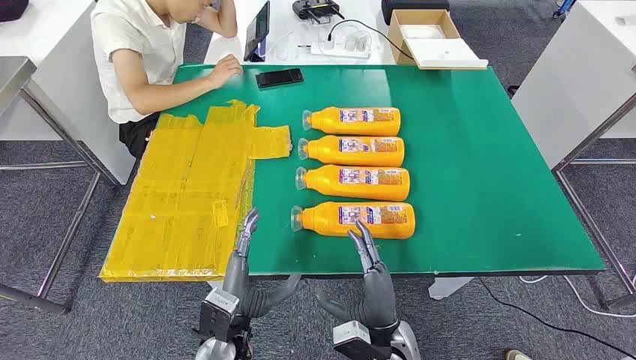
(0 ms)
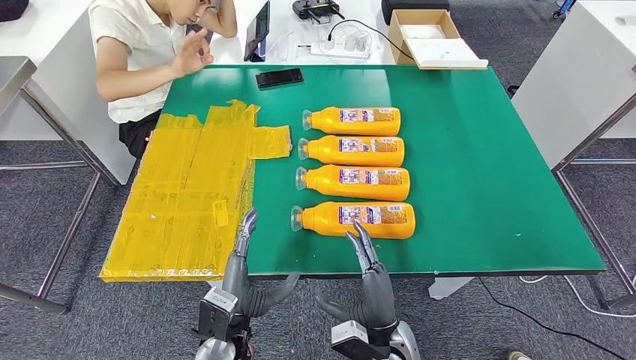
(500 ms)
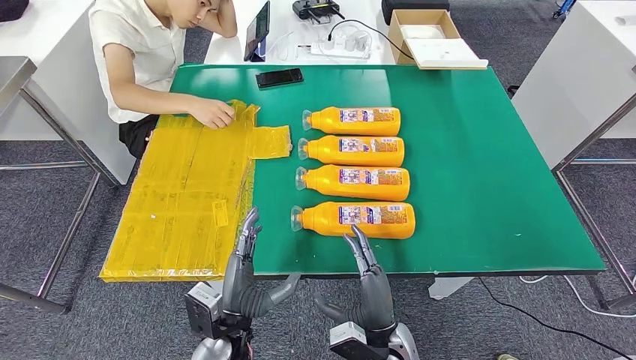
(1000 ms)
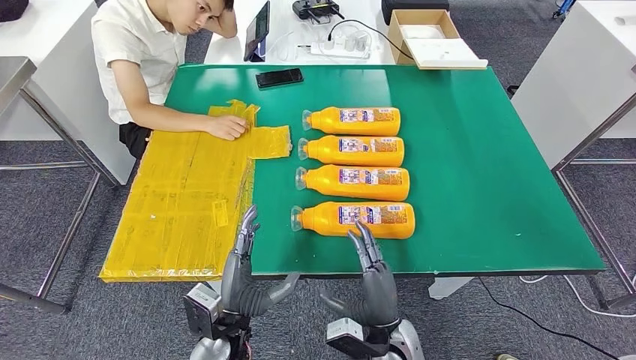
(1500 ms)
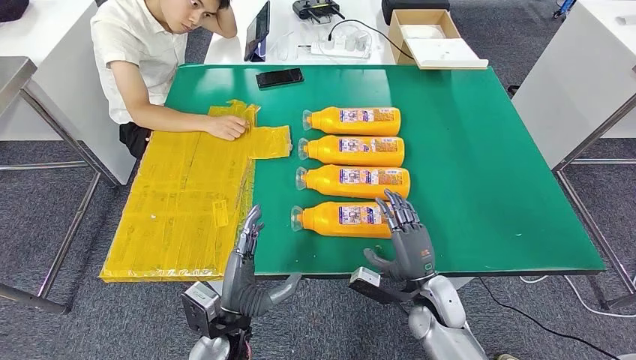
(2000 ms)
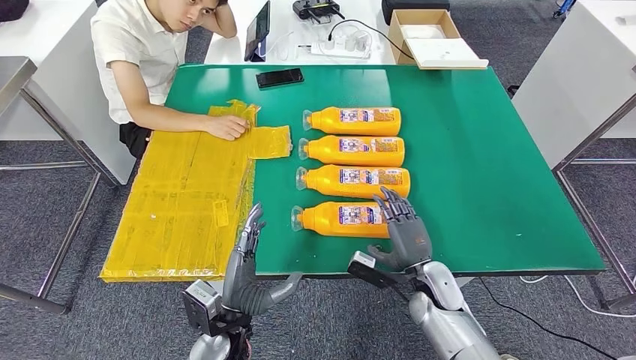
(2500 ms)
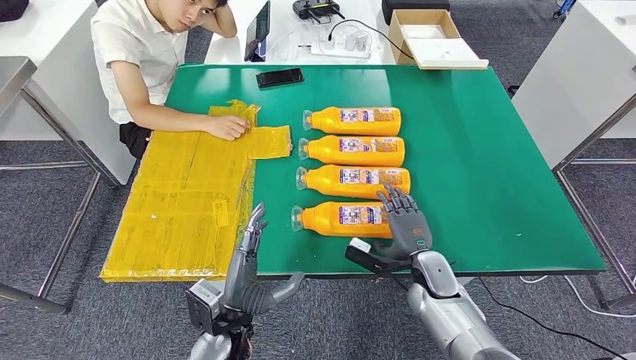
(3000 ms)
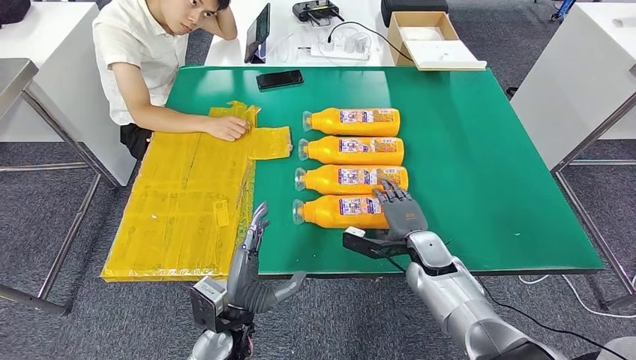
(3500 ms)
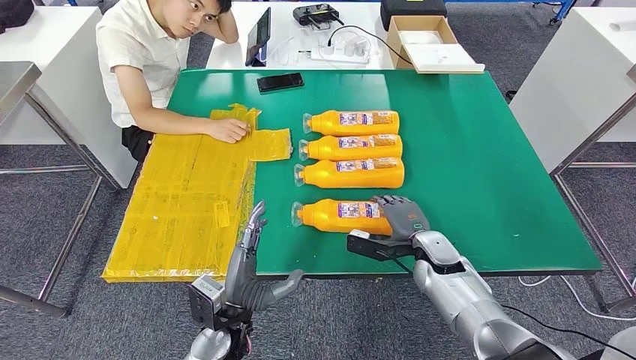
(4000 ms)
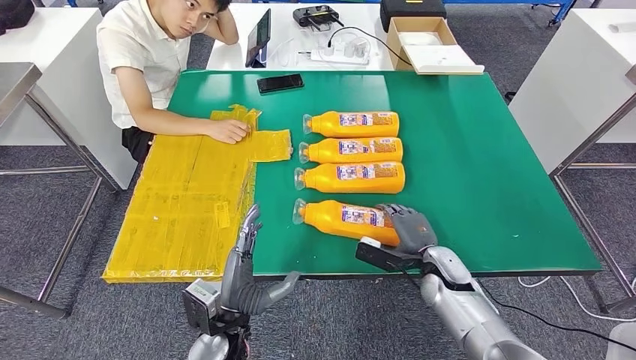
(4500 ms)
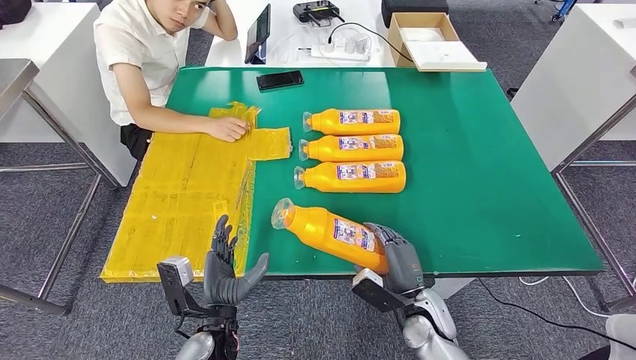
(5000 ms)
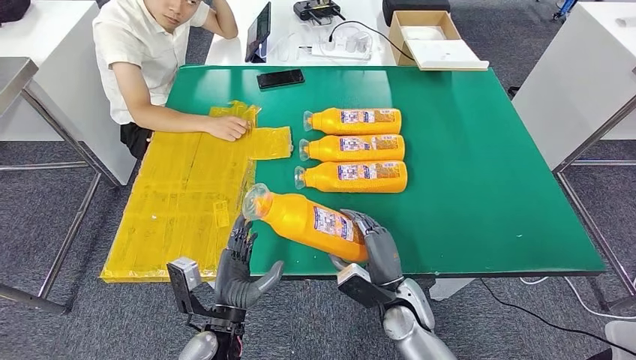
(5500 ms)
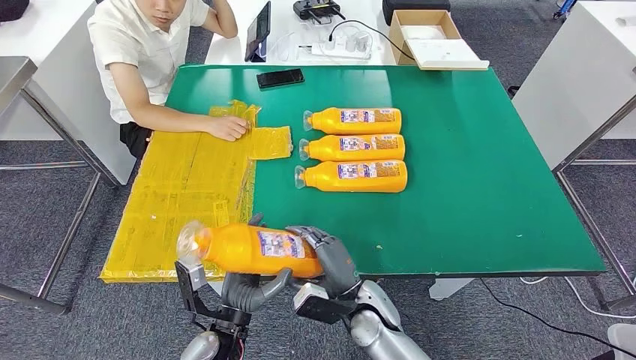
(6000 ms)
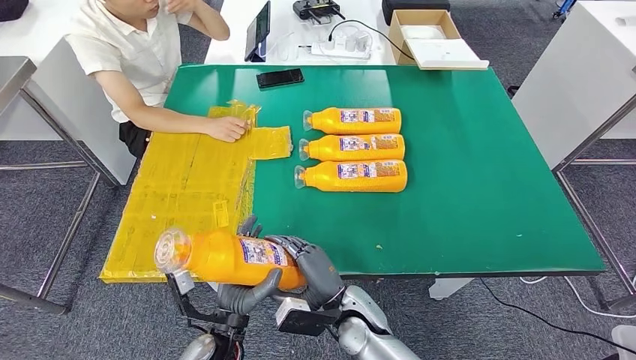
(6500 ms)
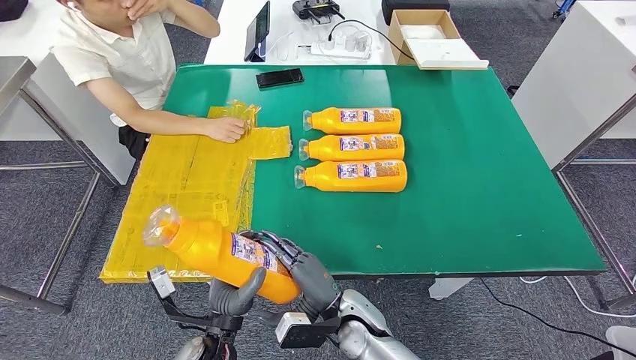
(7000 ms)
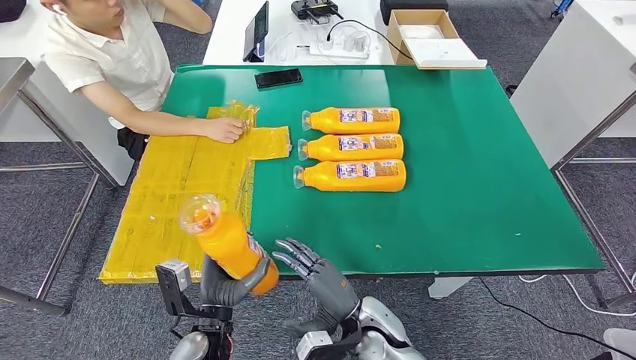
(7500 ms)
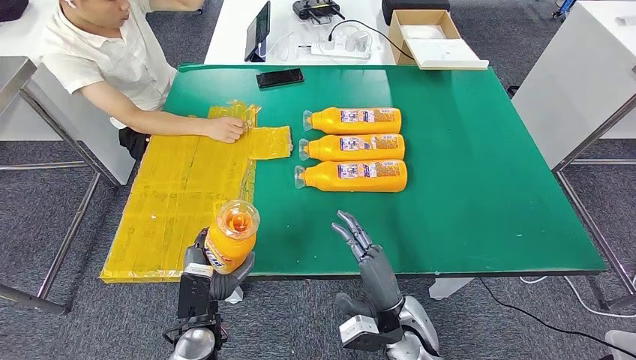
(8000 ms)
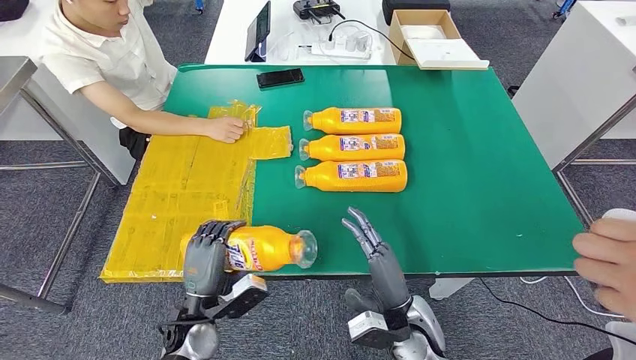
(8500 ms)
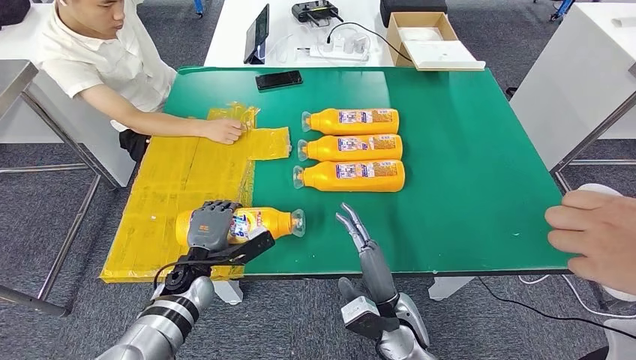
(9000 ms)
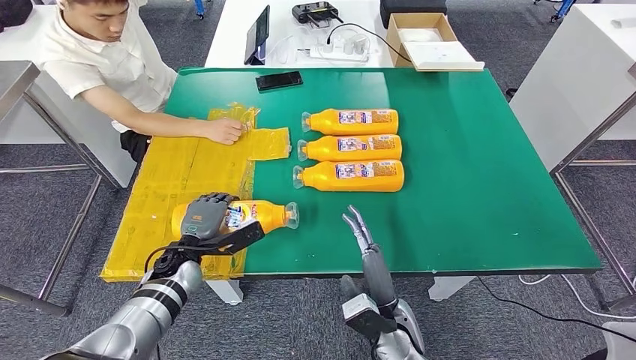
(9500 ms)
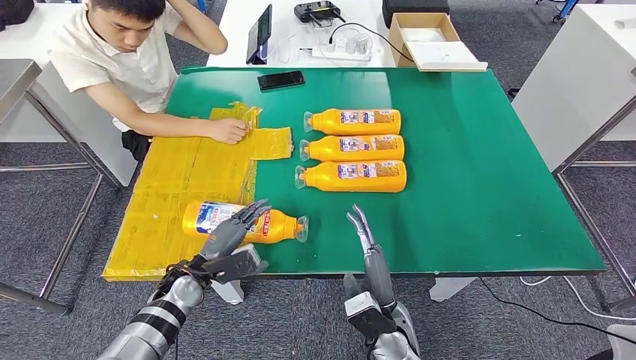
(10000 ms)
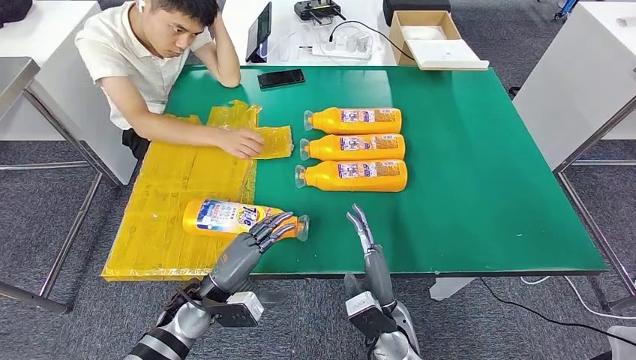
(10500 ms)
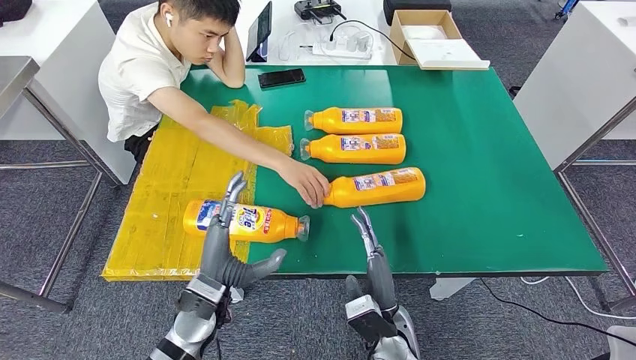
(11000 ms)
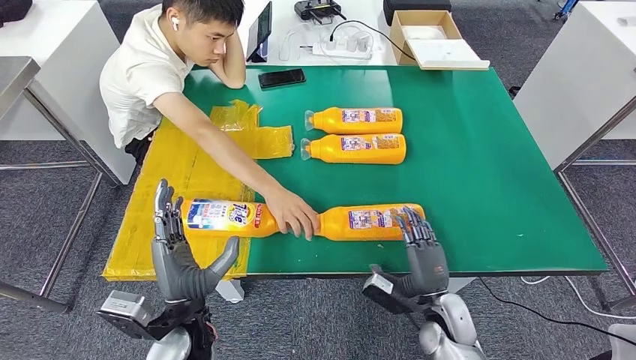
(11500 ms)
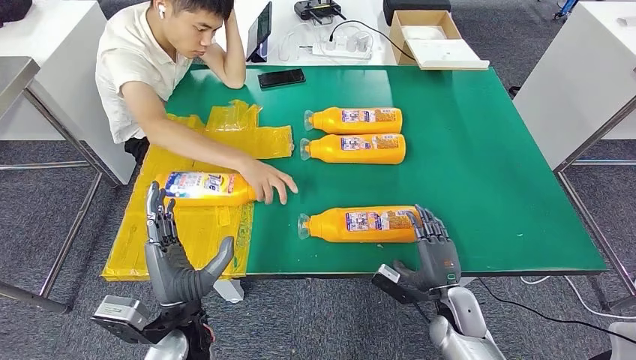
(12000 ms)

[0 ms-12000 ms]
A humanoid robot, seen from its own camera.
Step, 0 ms to 7000 ms: Take the fast-moving consumer goods bottle from the table.
Step, 7500 ms to 10500 ms: Flip the fast-moving consumer goods bottle to the front side.
6000 ms to 8000 ms: The right hand travels to the right by roughly 5 cm.
8000 ms to 10000 ms: The left hand goes some 10 cm forward.

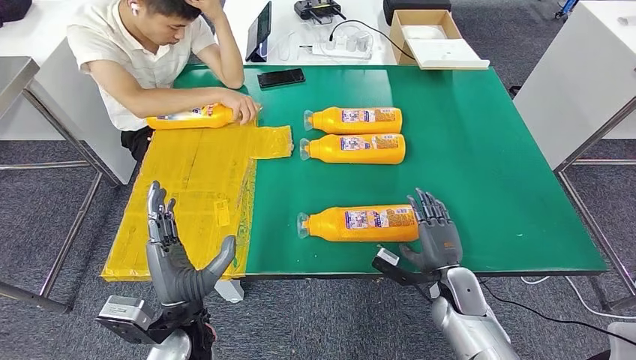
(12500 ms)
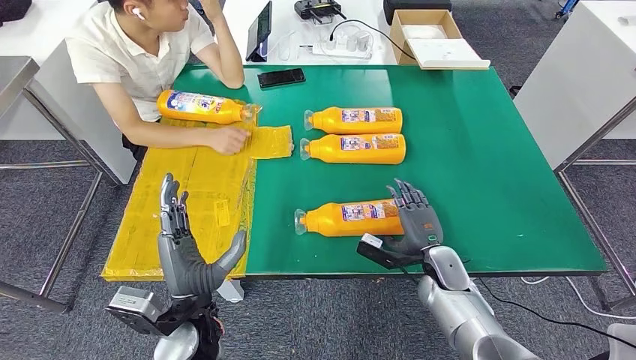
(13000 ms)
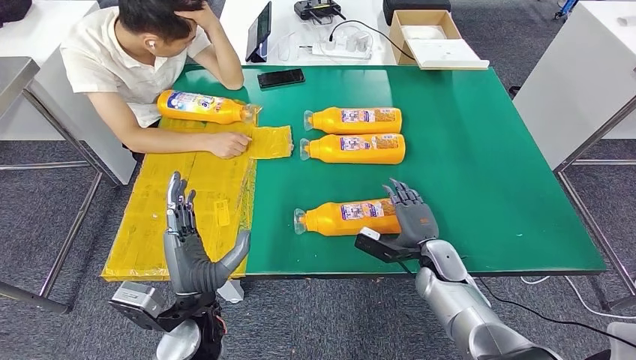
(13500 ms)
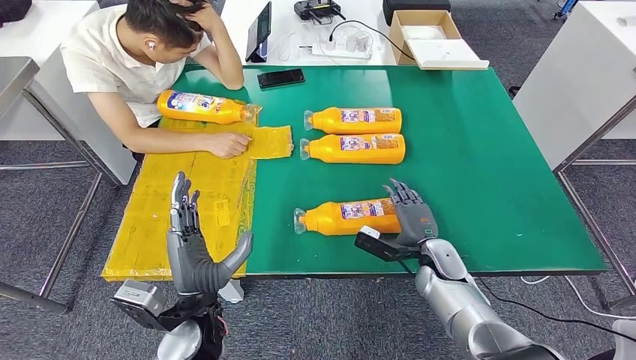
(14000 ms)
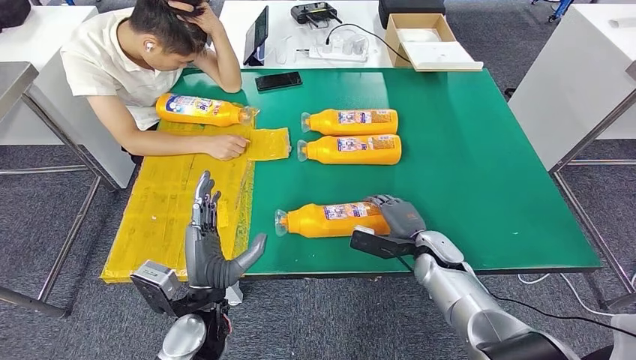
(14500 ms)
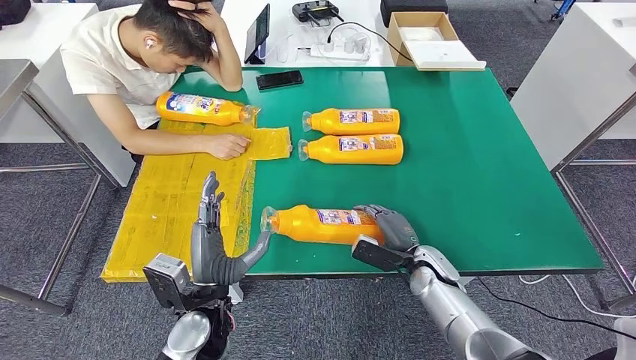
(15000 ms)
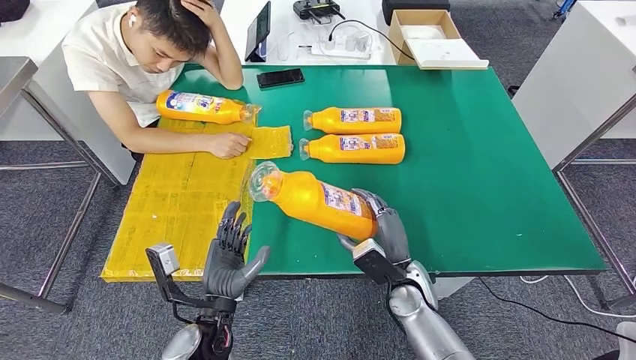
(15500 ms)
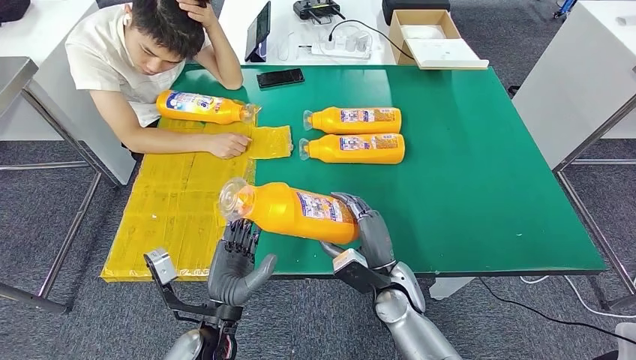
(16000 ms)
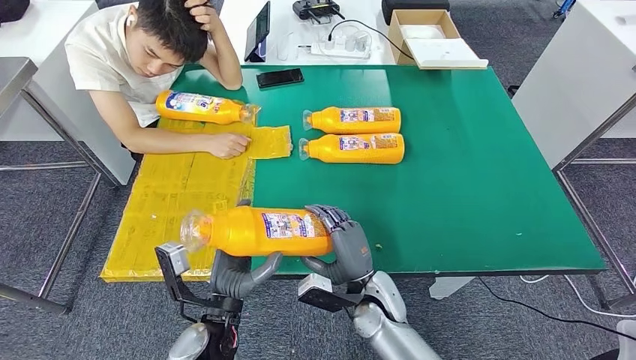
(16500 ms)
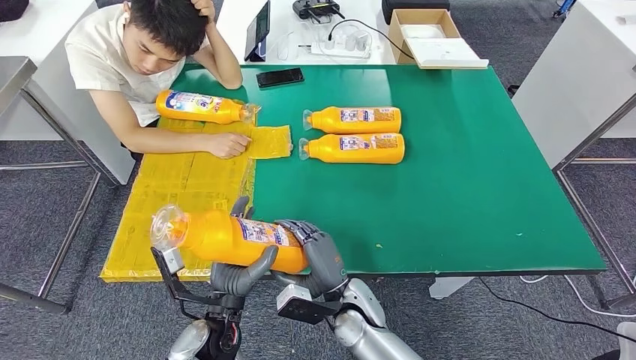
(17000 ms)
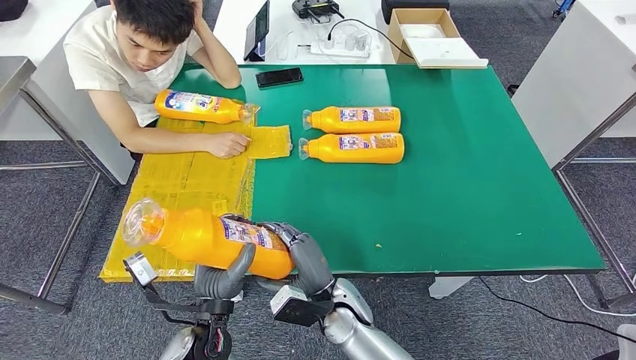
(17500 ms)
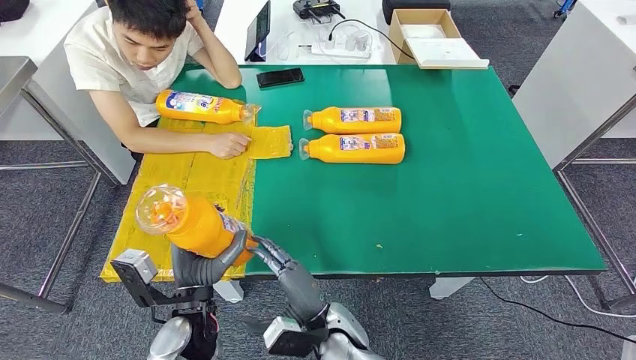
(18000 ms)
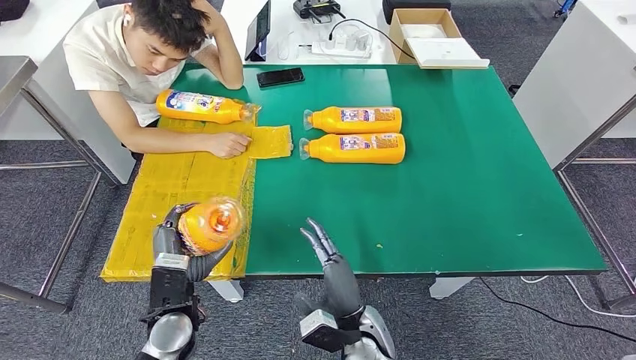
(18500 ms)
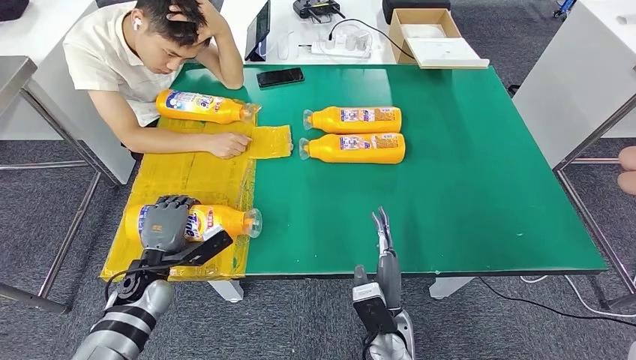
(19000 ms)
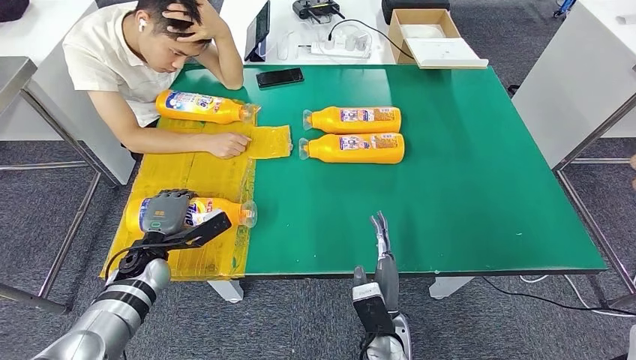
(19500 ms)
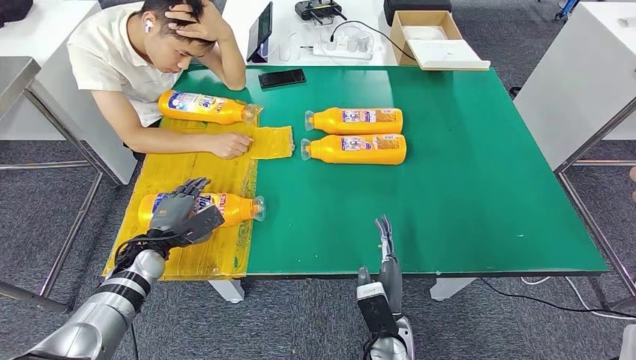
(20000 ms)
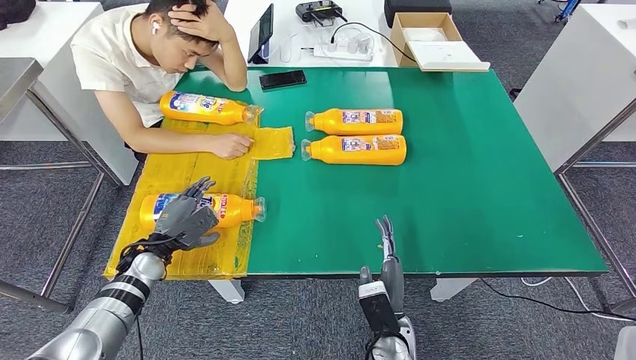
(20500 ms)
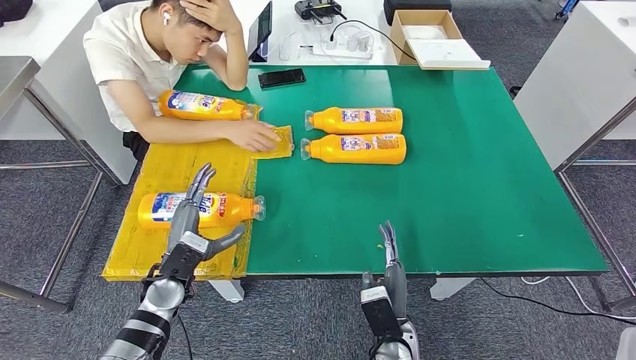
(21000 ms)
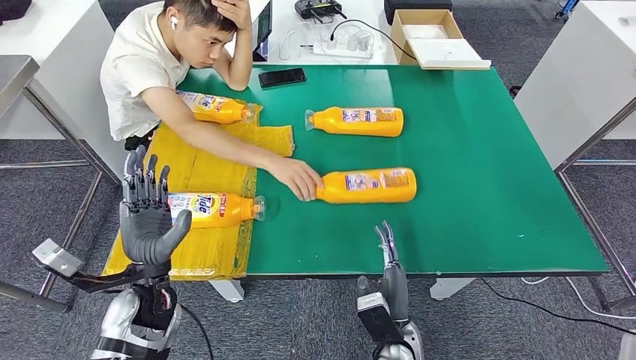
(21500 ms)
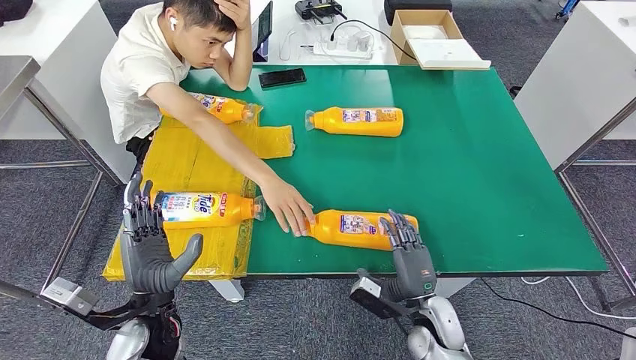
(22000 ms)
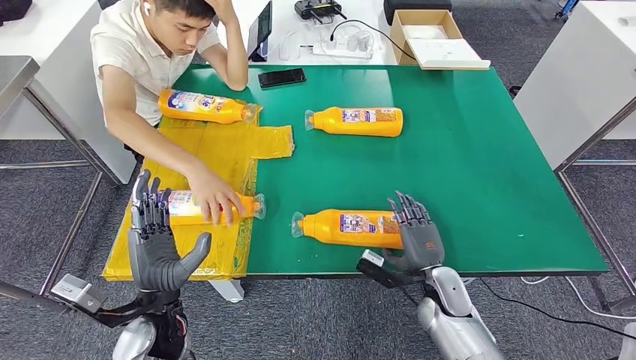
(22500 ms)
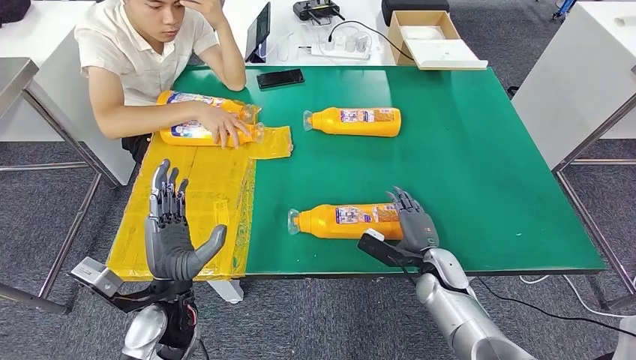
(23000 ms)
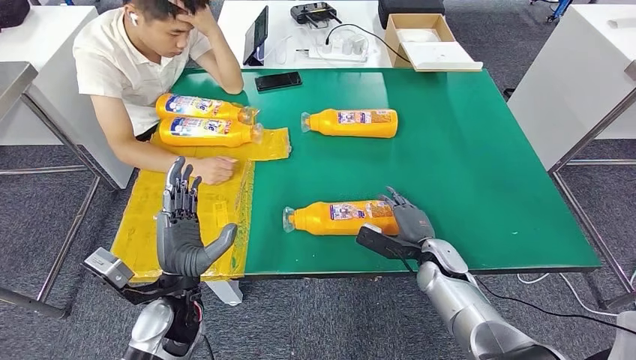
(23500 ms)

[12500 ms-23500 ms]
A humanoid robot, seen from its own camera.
Step, 12500 ms to 16000 ms: Pick up the fast-moving consumer goods bottle from the table.
Step, 16500 ms to 20000 ms: Flip the fast-moving consumer goods bottle to the front side.
16000 ms to 18000 ms: The right hand heads to the left and backward, covering about 15 cm.
